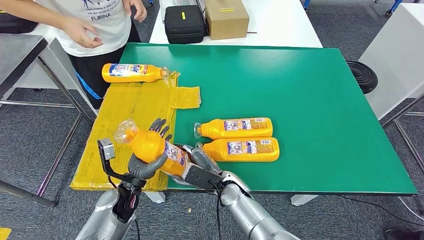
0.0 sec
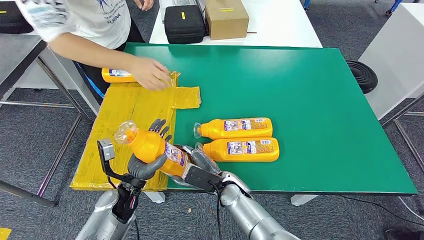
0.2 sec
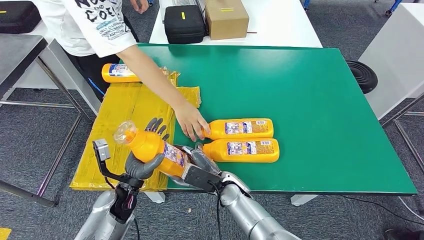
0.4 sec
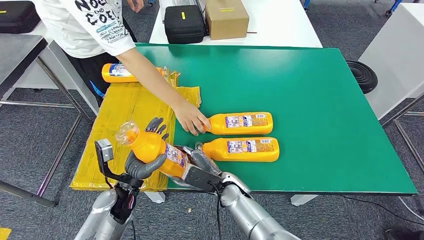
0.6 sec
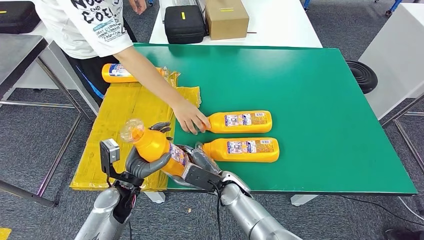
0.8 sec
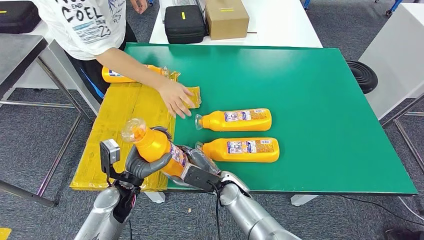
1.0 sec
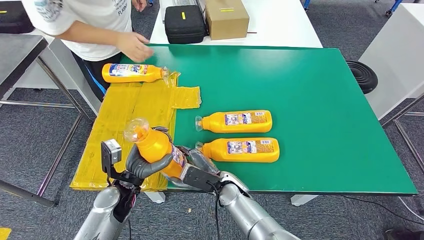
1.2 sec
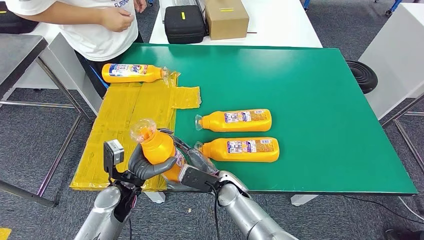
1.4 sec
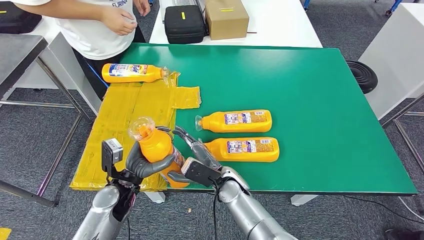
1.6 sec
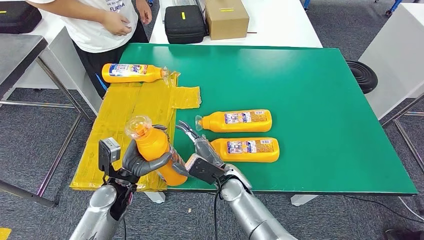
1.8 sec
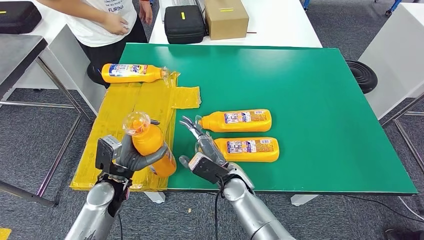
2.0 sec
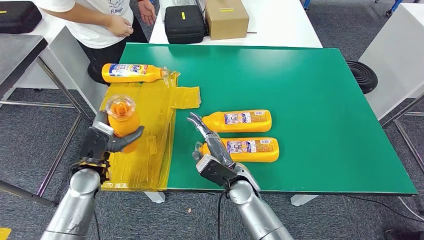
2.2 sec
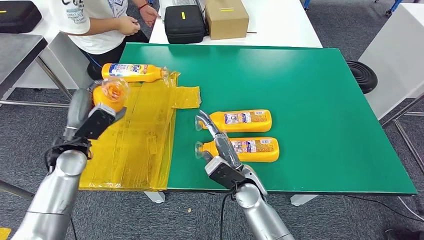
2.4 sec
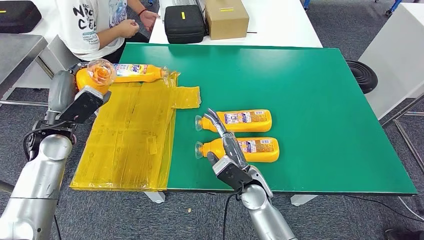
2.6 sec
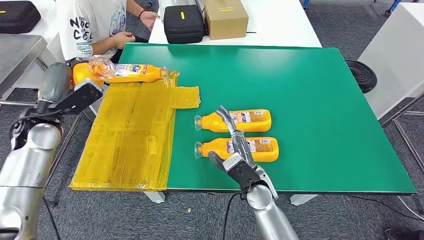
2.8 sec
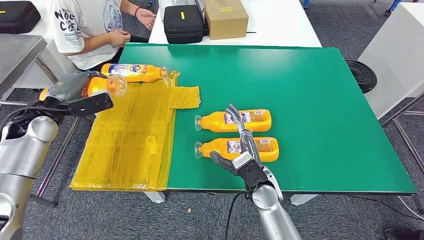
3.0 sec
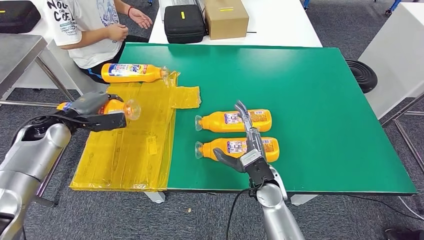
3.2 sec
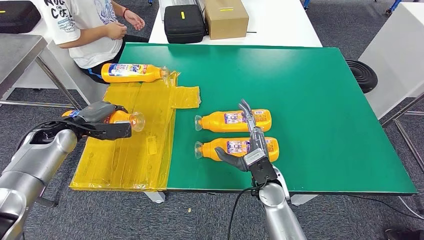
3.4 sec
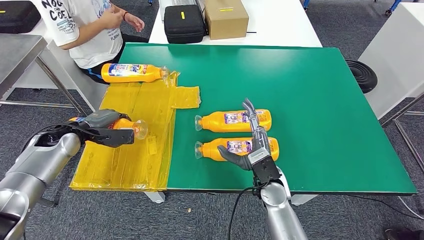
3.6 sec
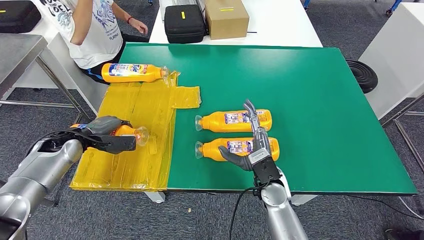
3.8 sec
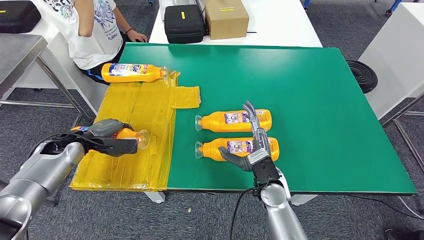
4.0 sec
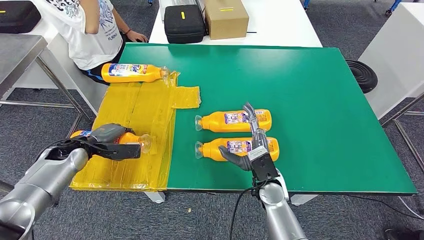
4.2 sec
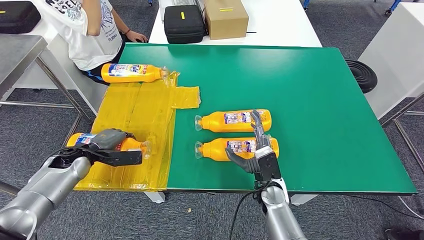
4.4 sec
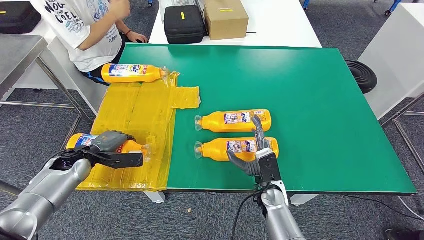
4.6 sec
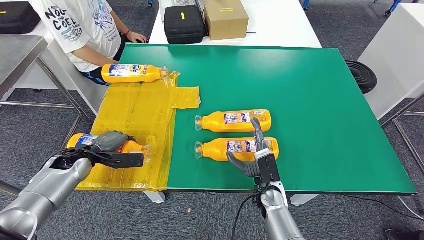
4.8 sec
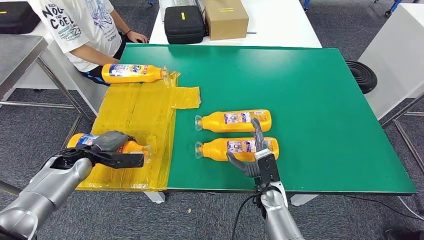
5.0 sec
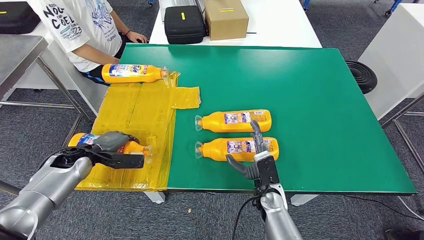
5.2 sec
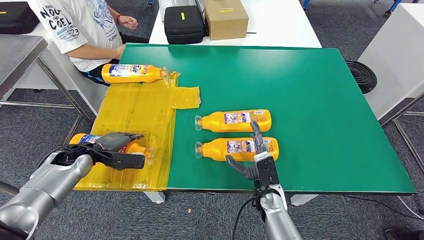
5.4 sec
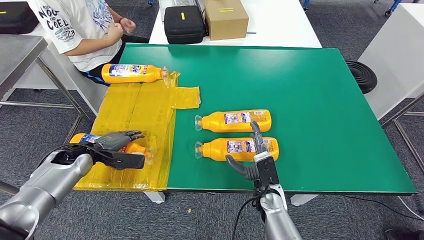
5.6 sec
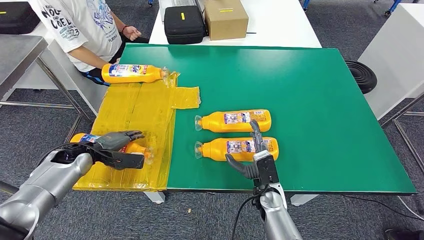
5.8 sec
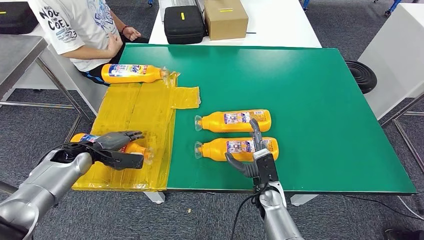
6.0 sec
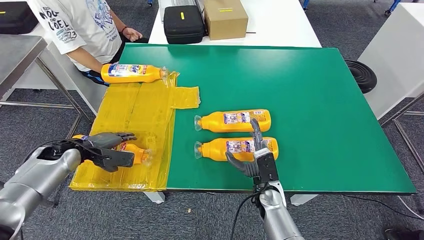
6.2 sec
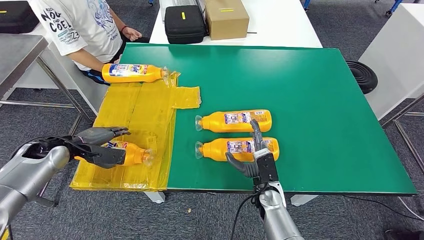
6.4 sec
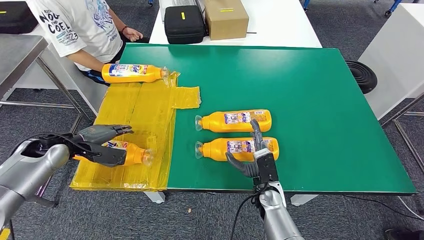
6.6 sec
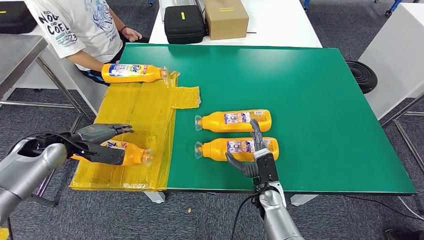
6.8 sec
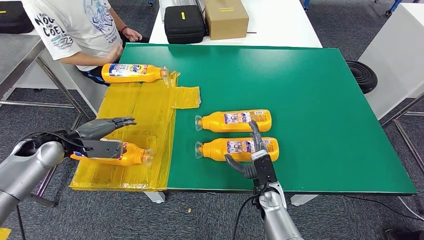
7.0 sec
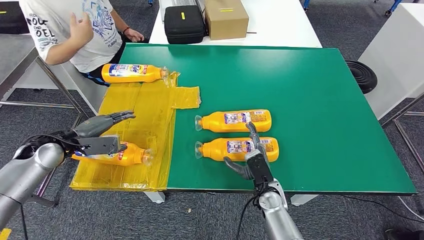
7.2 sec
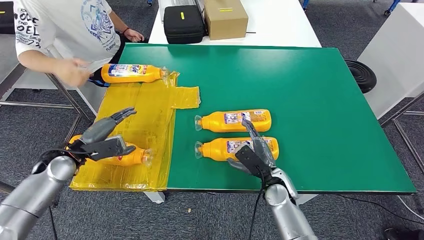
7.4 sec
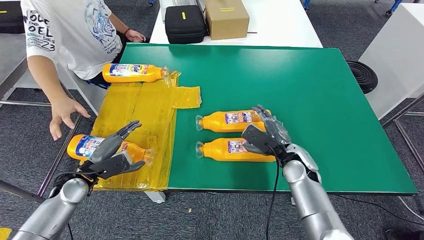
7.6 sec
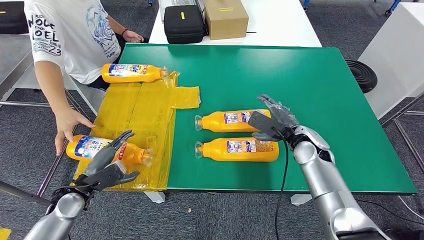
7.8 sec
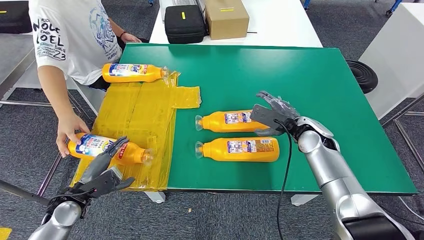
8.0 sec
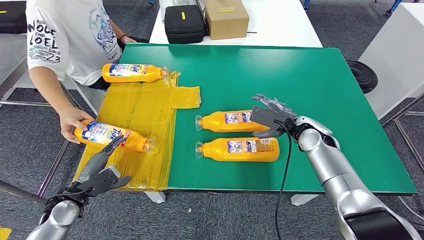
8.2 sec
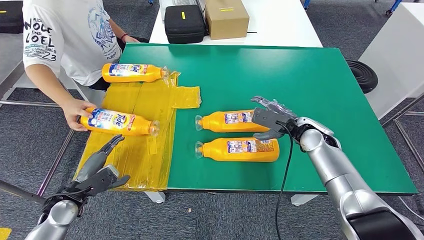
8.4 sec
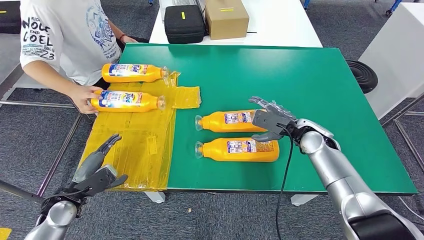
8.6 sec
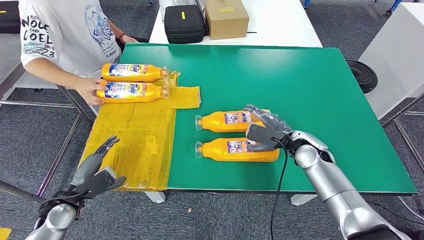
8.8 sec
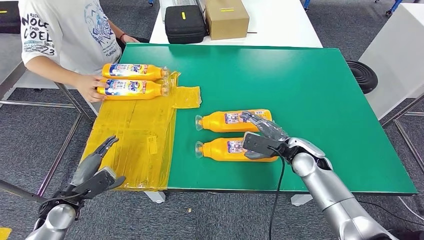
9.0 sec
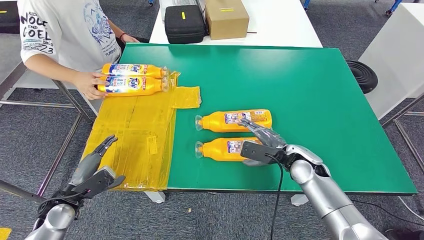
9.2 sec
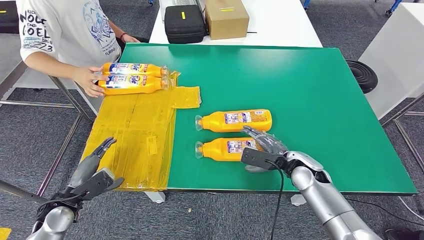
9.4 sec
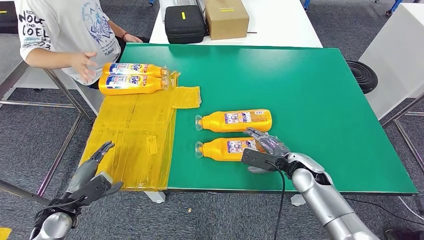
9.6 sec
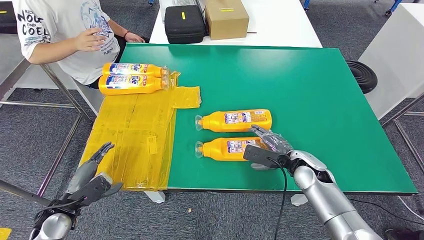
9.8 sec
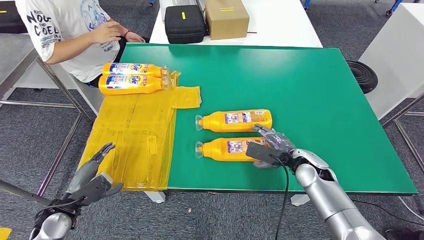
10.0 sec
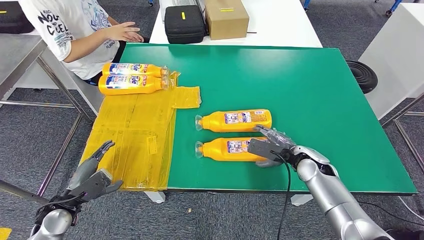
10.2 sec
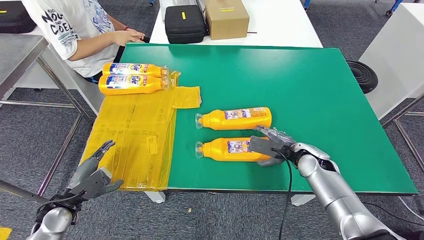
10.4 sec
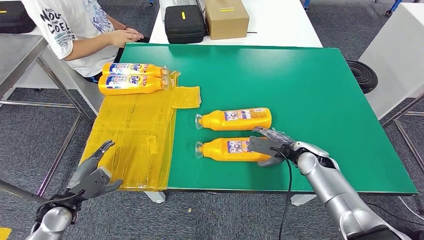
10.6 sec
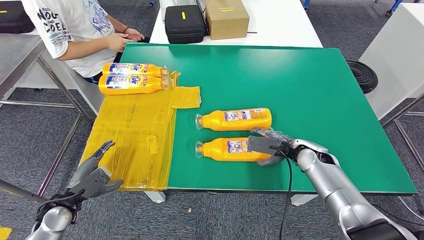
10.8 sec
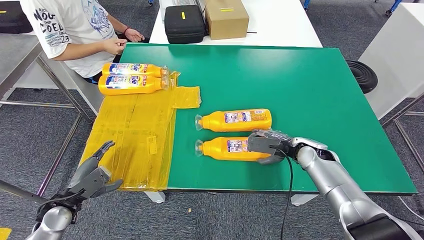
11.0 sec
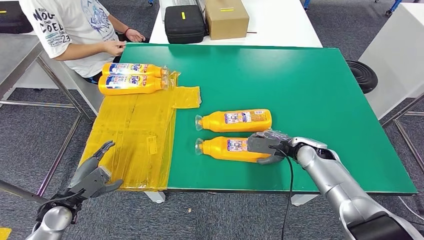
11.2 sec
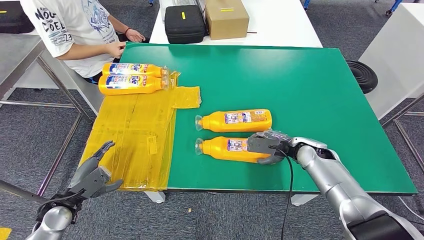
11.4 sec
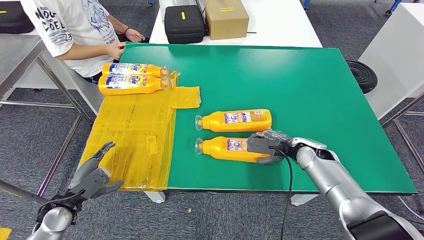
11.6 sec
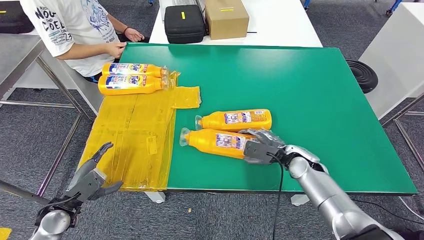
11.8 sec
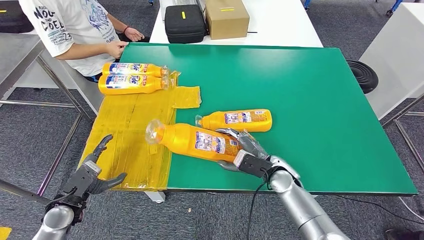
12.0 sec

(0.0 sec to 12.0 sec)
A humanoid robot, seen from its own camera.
Step, 0.0 sec - 6.2 sec: Flip the fast-moving consumer goods bottle to the front side.
4.4 sec - 6.0 sec: The hands make only small movements.
9.0 sec - 10.4 sec: There are only small adjustments of the hands.
10.4 sec - 12.0 sec: The right hand moves to the left, roughly 10 cm.

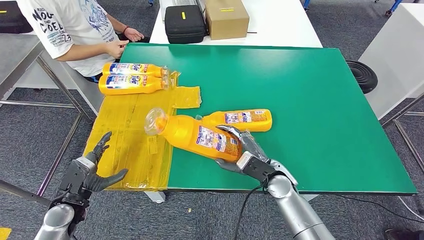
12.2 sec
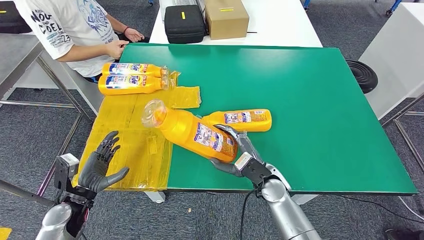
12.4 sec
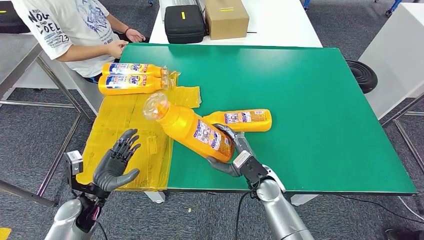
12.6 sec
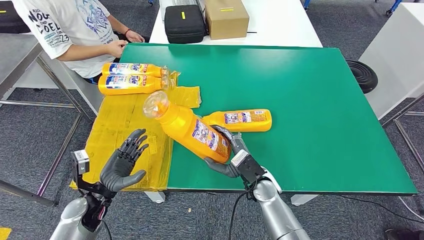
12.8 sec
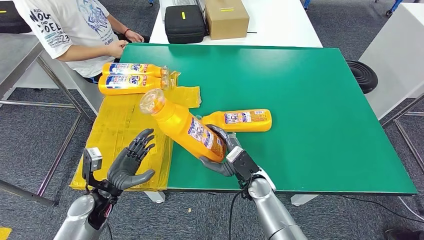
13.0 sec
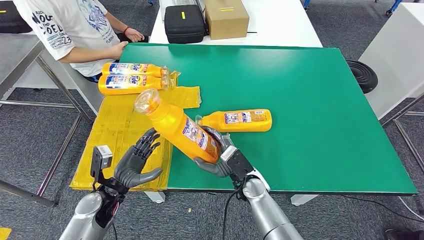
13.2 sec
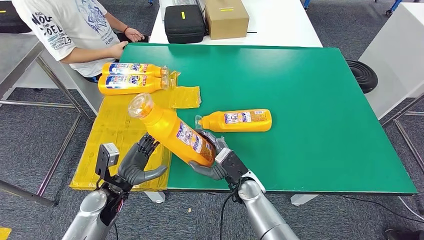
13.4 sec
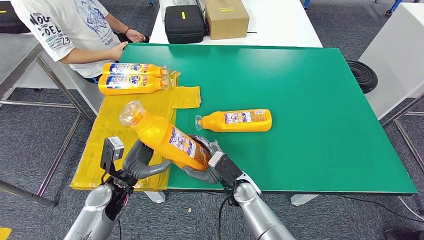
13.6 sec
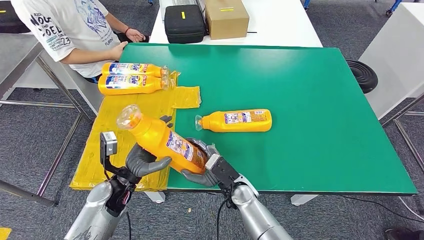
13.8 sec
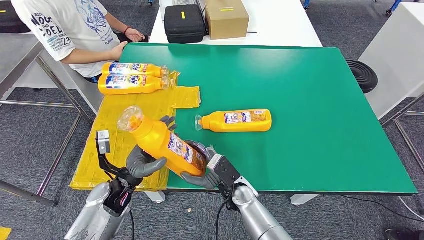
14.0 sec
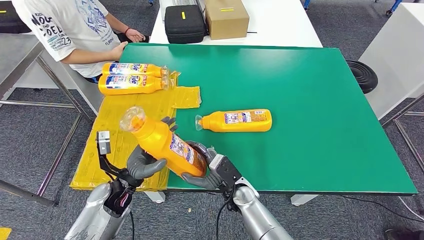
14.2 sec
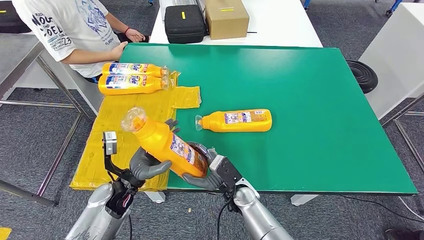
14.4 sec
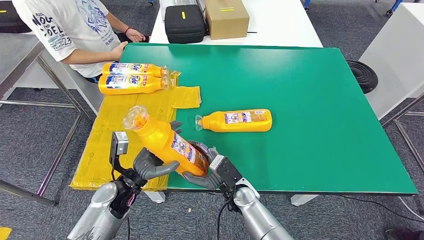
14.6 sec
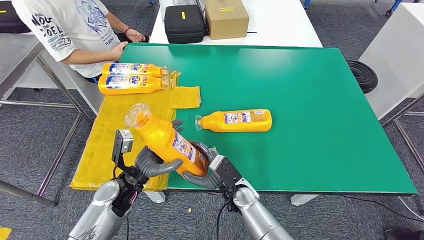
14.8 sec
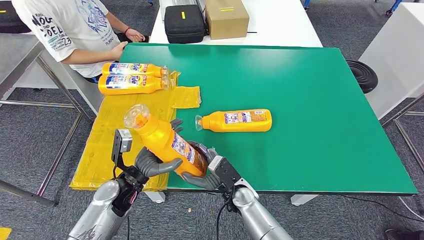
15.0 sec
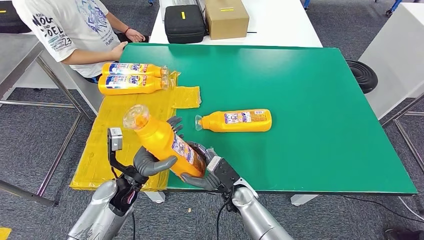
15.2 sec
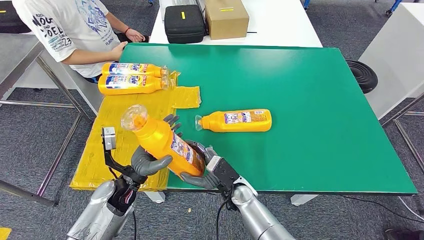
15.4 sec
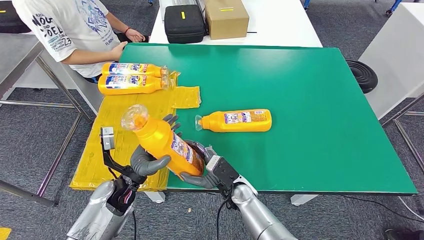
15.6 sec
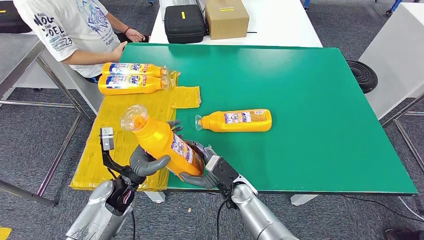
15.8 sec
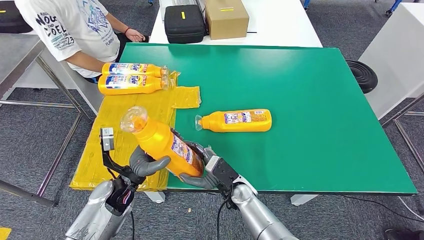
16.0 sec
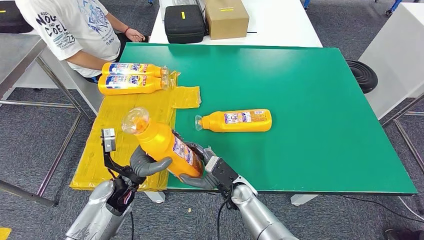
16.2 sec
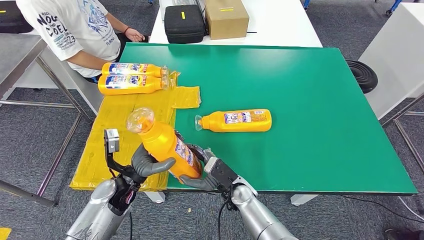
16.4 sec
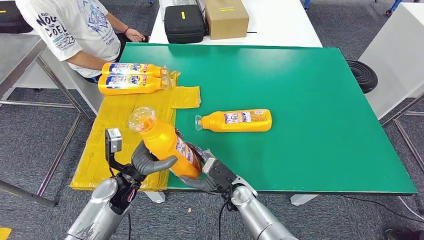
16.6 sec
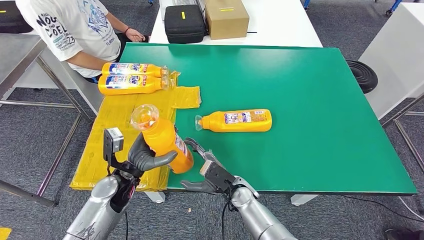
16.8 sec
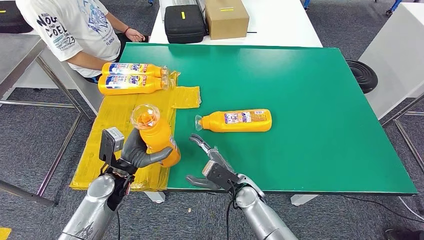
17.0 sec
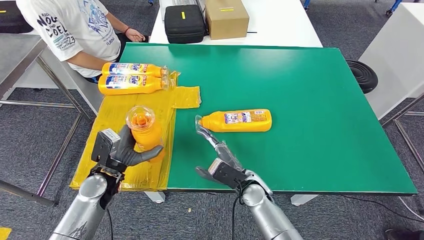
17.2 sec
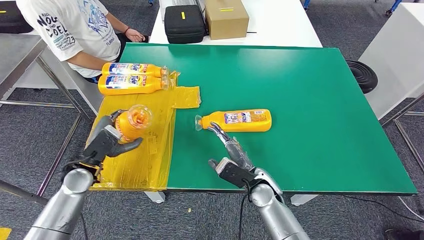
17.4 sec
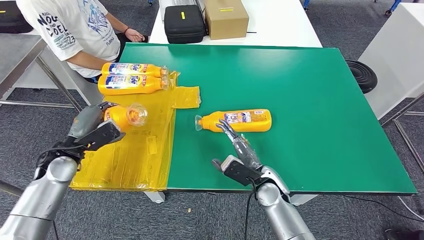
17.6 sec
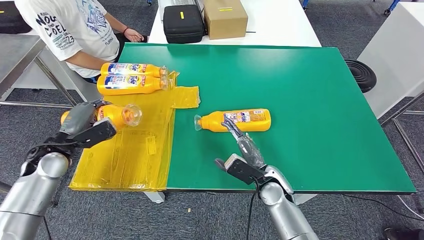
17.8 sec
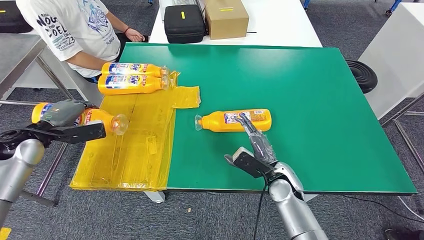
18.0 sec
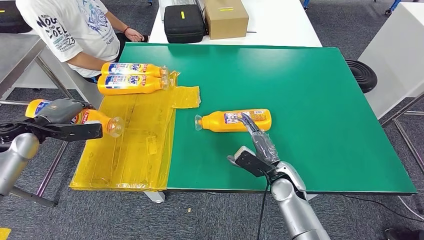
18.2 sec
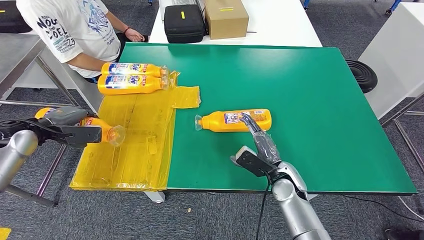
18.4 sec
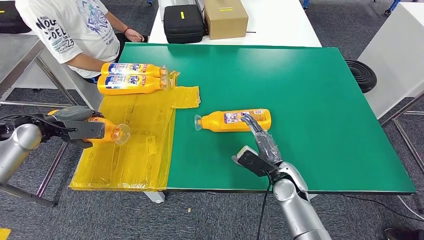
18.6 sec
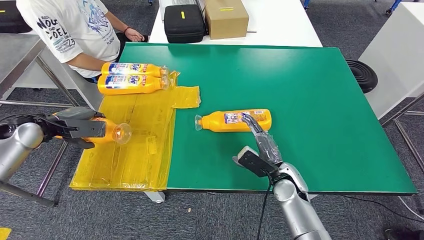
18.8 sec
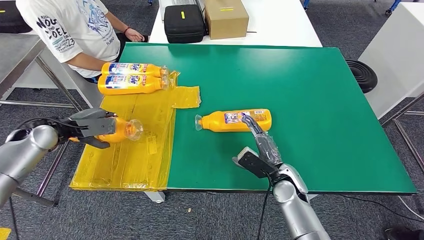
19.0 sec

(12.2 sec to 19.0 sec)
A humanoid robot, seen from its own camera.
12.2 sec - 13.6 sec: The right hand goes approximately 10 cm to the left; the left hand goes roughly 15 cm to the right.
15.0 sec - 16.2 sec: The hands stay close to where they were, moving slightly.
16.2 sec - 17.6 sec: The right hand moves to the right, roughly 10 cm. Meanwhile the left hand heads to the left and forward, covering approximately 15 cm.
17.6 sec - 19.0 sec: The right hand heads to the right, covering some 5 cm. Meanwhile the left hand is displaced forward and to the left by approximately 10 cm.
